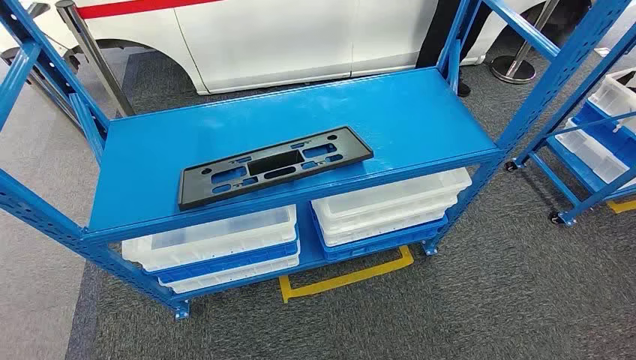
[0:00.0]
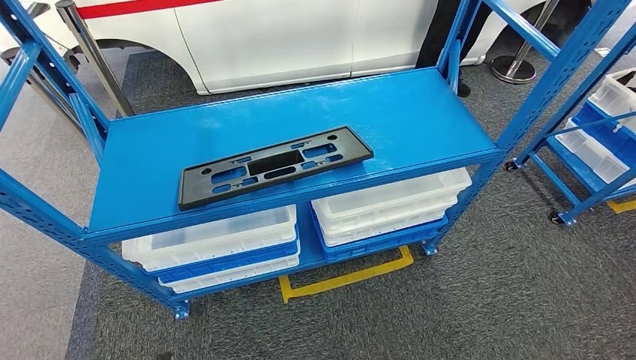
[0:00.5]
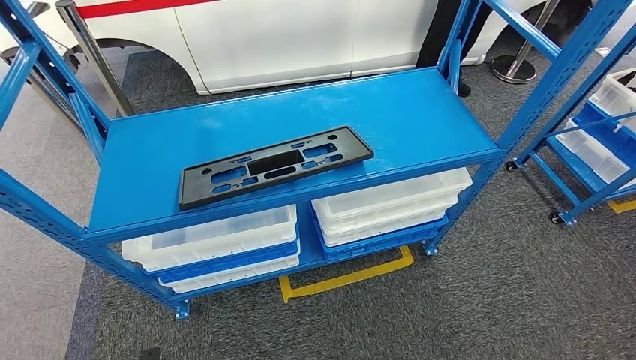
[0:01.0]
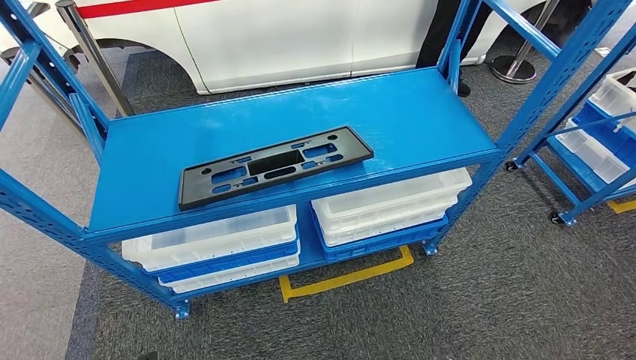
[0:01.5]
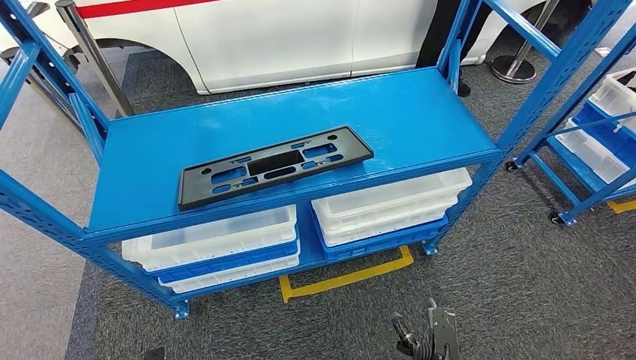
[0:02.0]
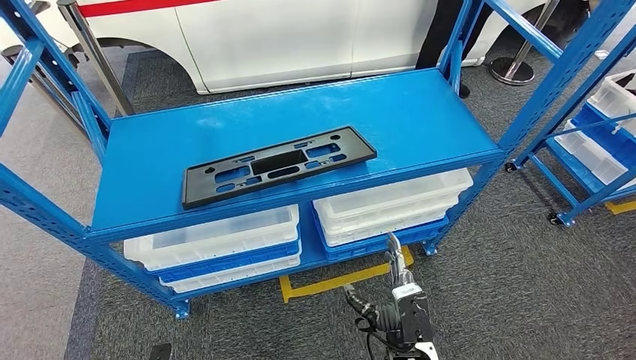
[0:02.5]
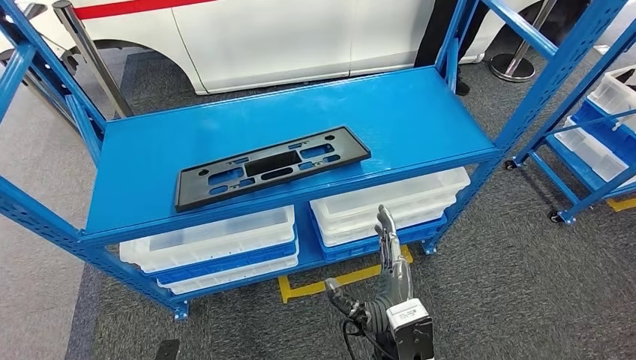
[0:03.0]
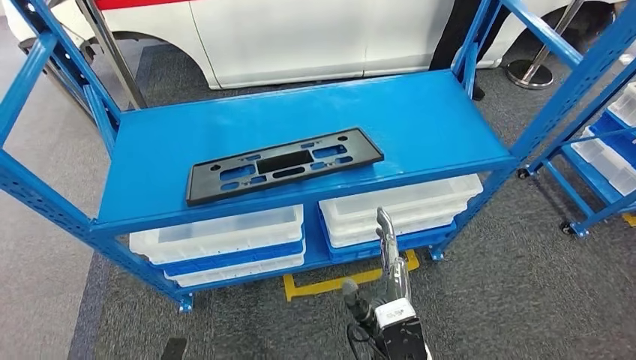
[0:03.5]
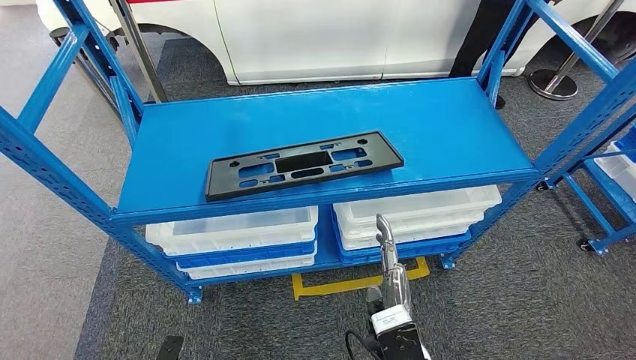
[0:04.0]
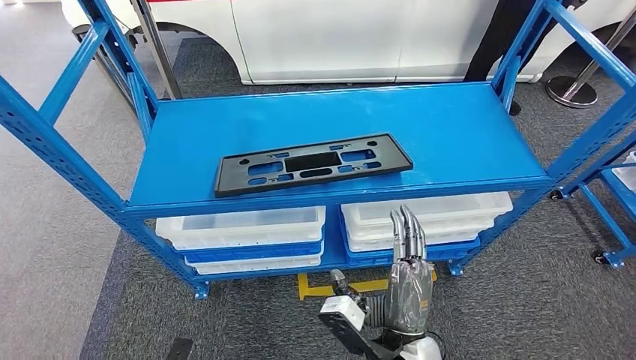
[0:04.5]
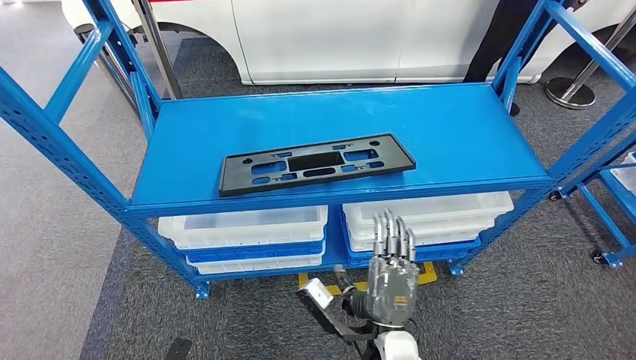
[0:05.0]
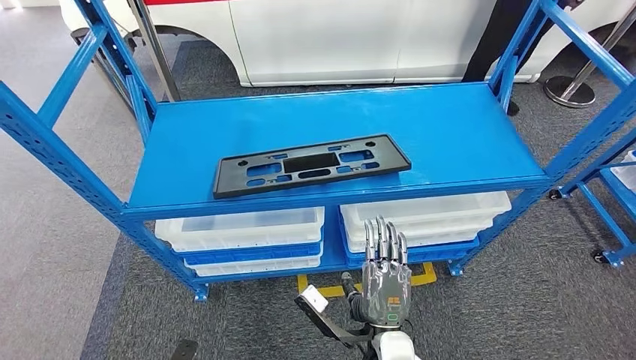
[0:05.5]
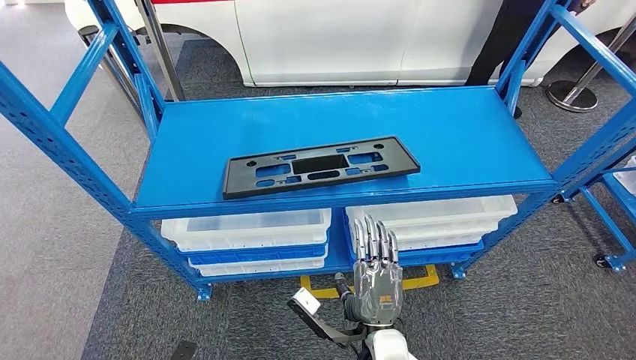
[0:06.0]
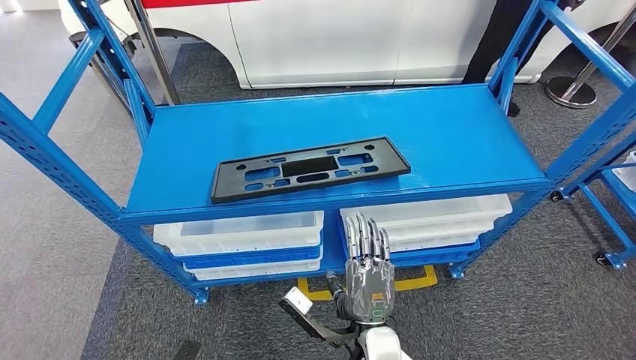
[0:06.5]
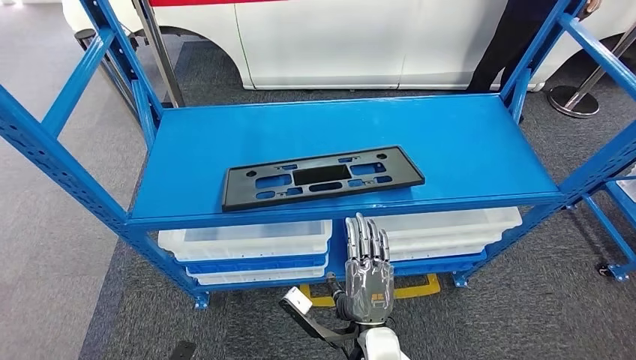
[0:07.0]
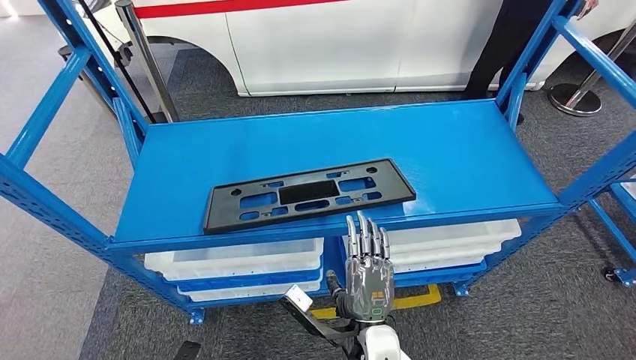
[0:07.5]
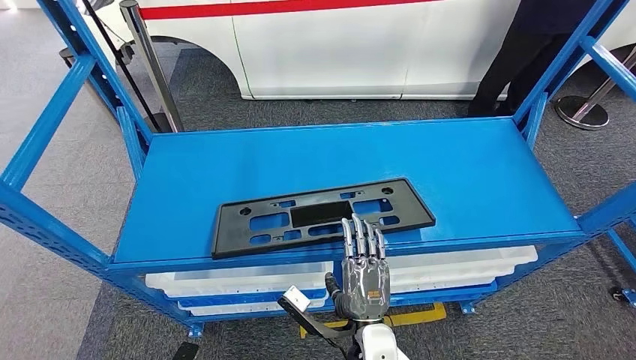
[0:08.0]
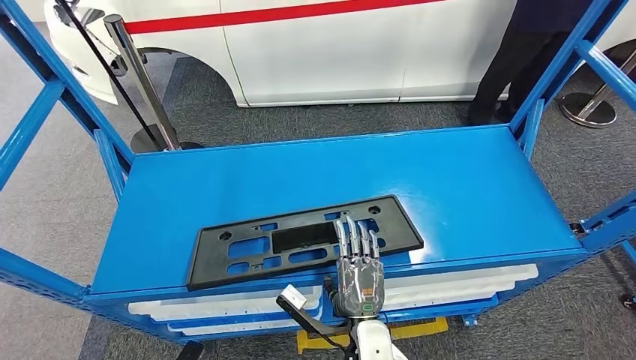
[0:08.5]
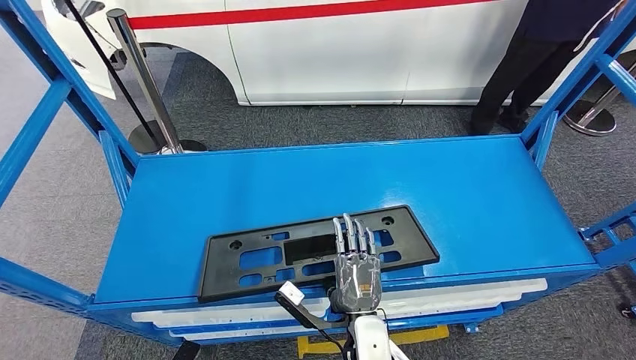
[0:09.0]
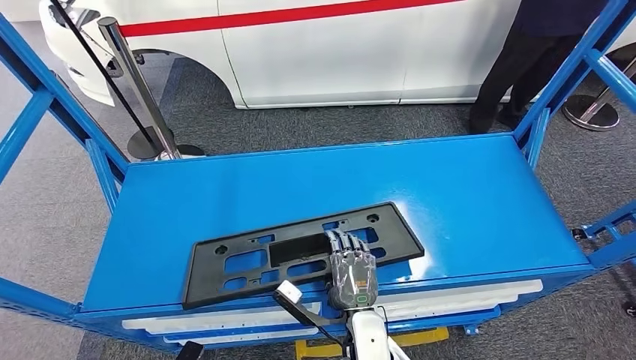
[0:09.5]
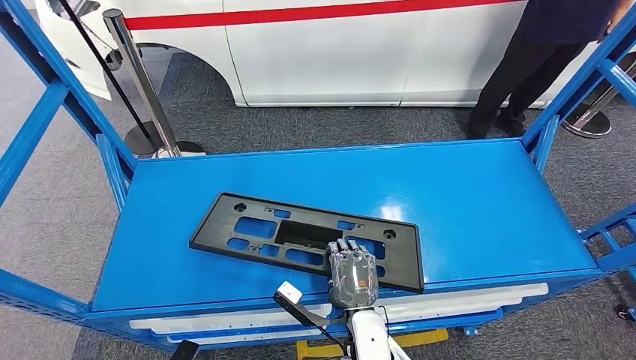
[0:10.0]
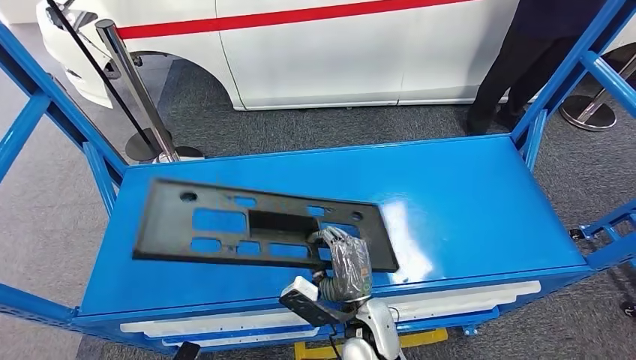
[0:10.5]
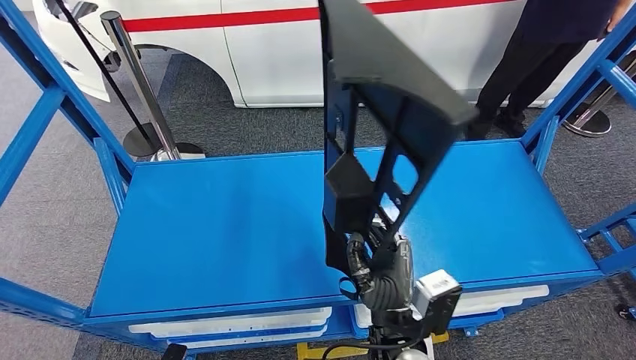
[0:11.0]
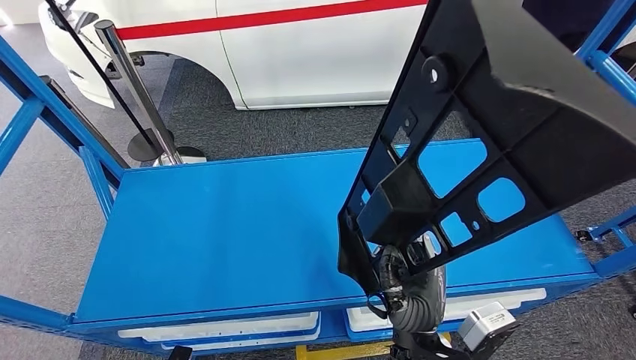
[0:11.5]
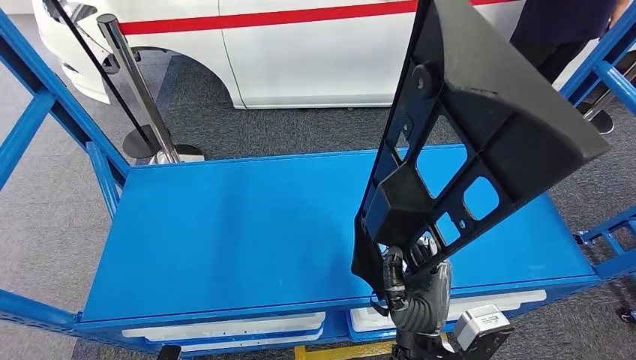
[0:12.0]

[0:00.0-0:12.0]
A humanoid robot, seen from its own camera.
Step, 0:00.0 to 0:12.0: Pick up the large material from the shelf.

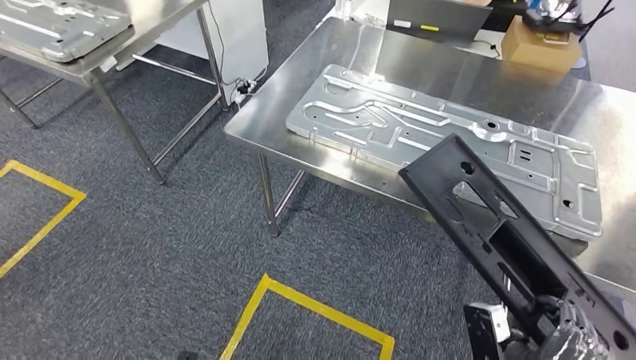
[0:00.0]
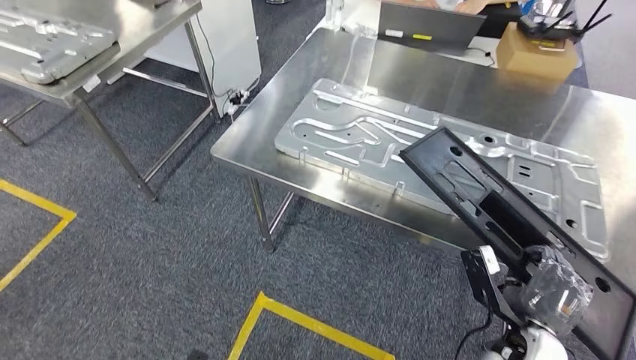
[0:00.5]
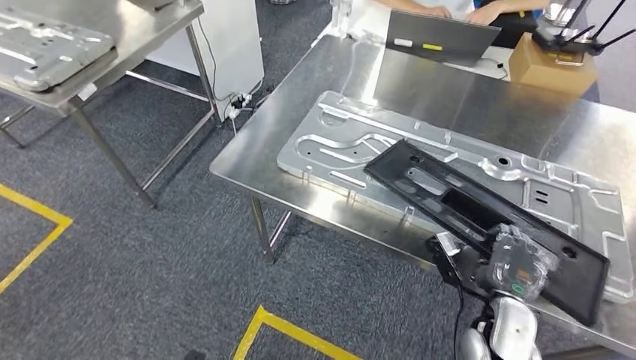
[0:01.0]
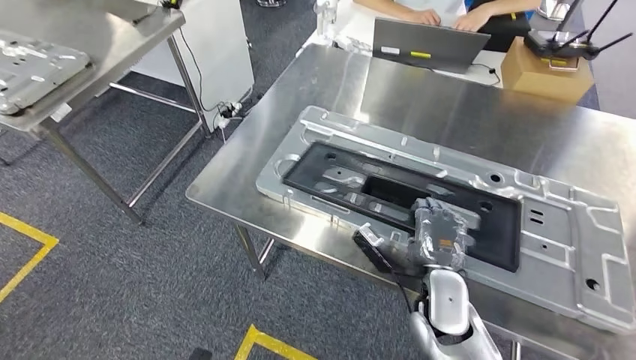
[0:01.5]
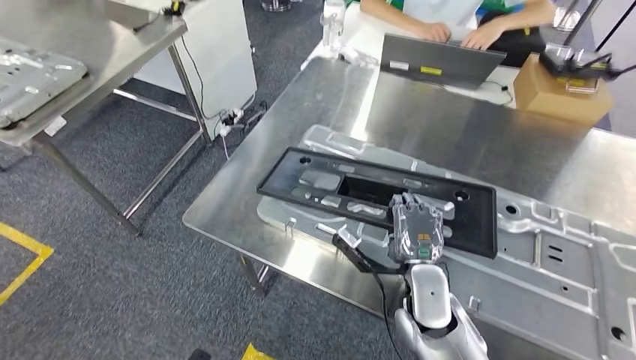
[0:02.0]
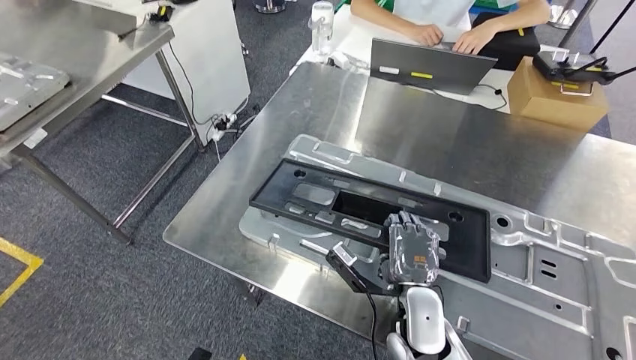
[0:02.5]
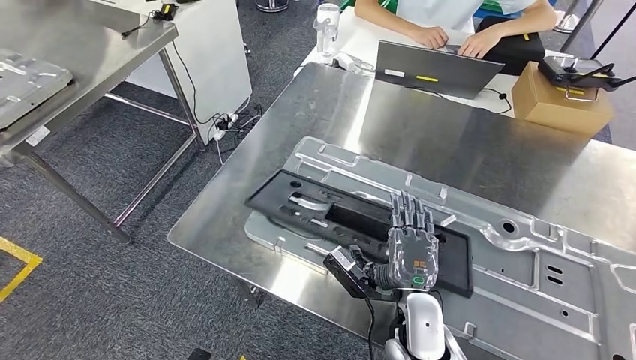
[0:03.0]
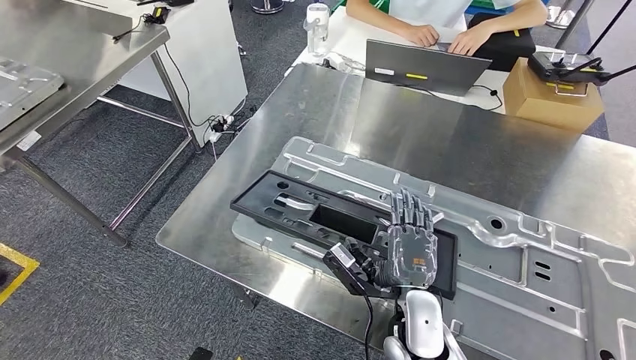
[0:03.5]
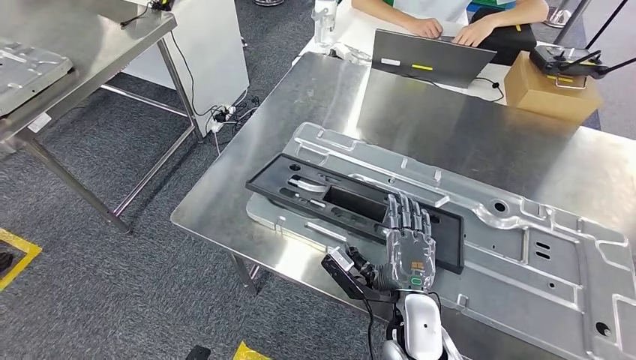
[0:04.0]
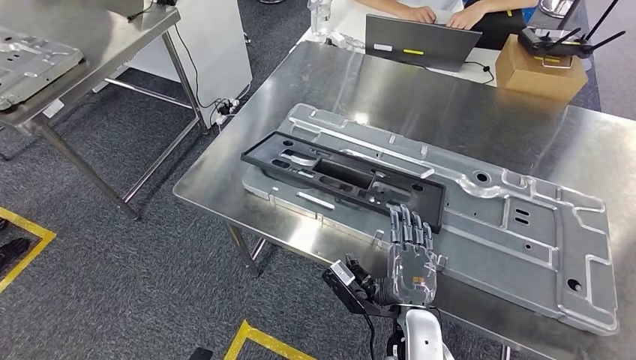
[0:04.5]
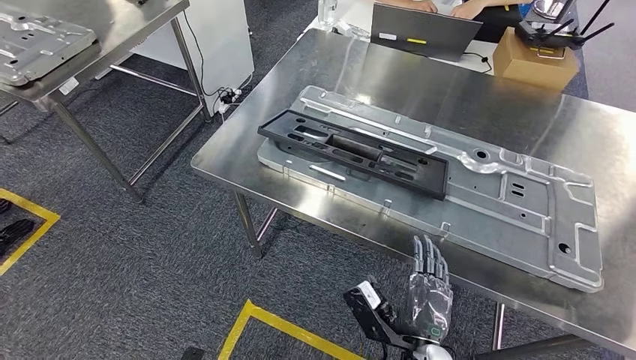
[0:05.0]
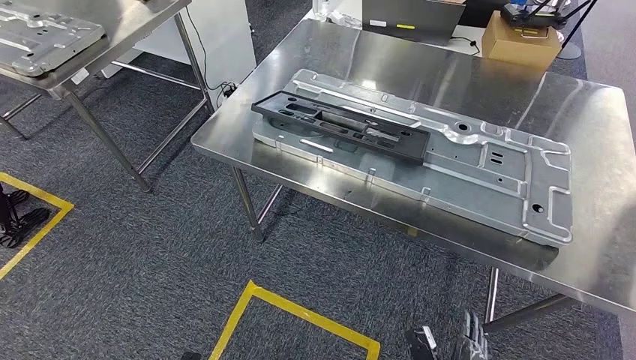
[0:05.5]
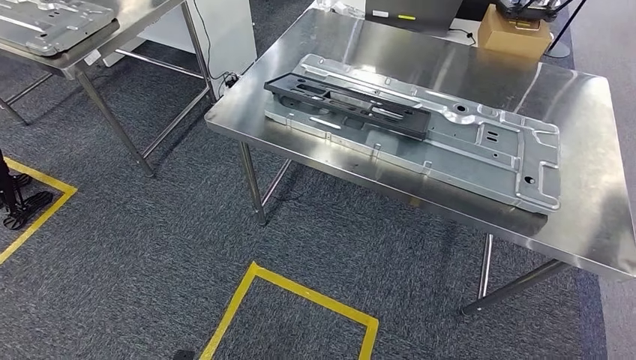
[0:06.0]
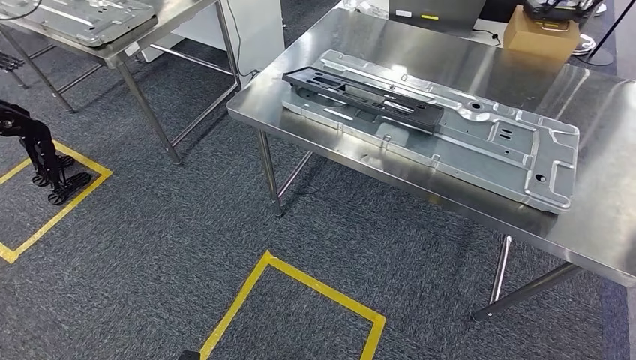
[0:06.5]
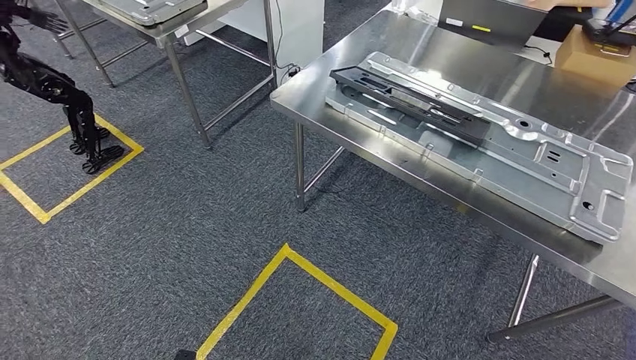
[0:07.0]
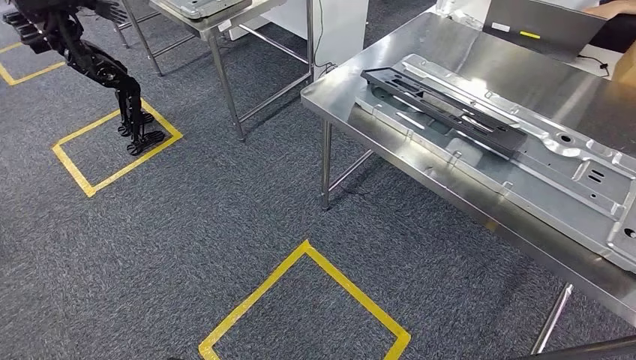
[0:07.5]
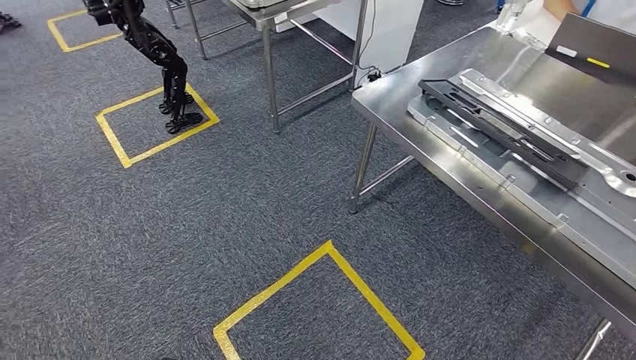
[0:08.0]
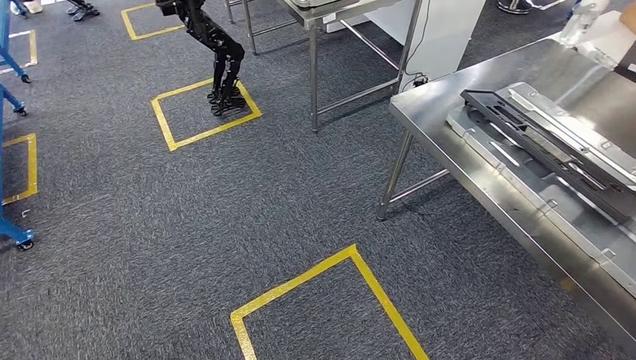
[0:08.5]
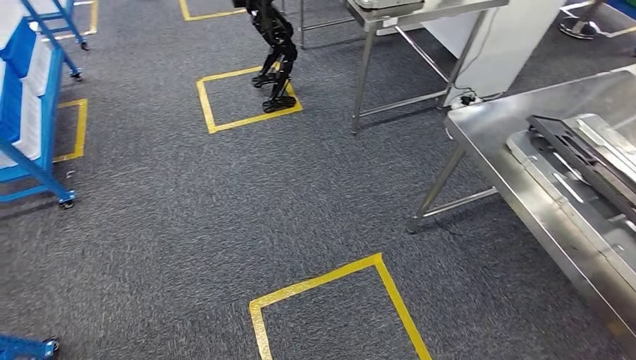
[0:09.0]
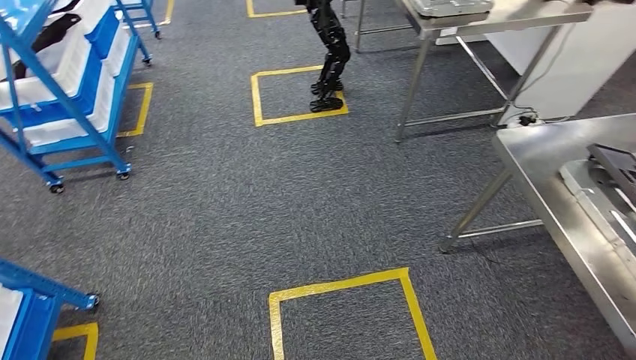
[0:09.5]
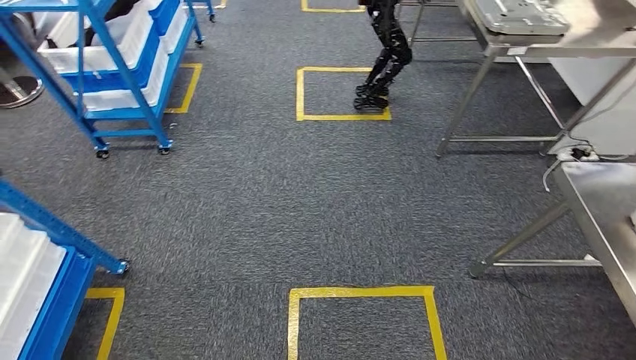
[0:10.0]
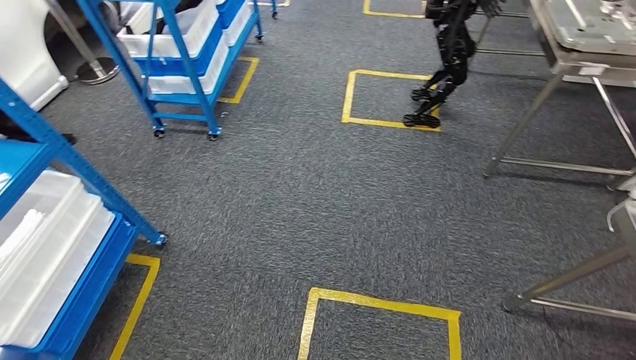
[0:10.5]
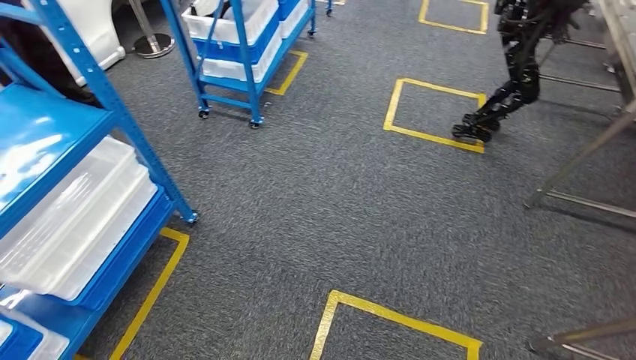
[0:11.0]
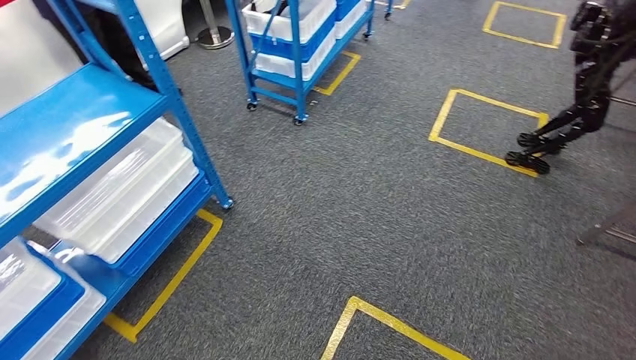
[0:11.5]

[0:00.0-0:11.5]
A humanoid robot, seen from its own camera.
Step, 0:03.0 to 0:07.0: Insert the large material into the corresponding slot on the workbench.
